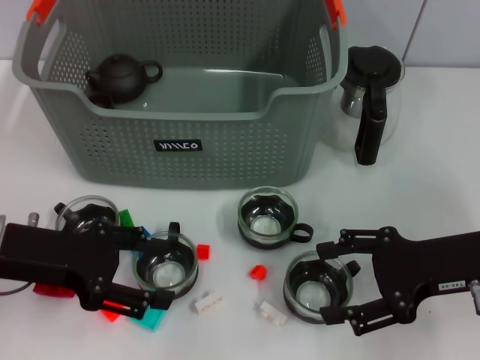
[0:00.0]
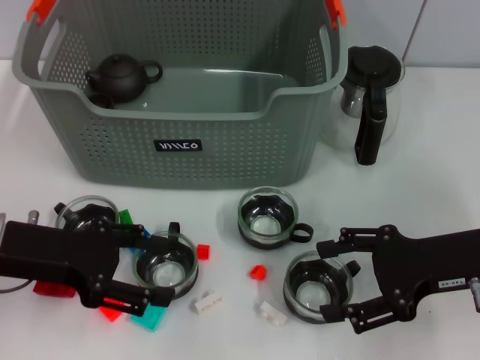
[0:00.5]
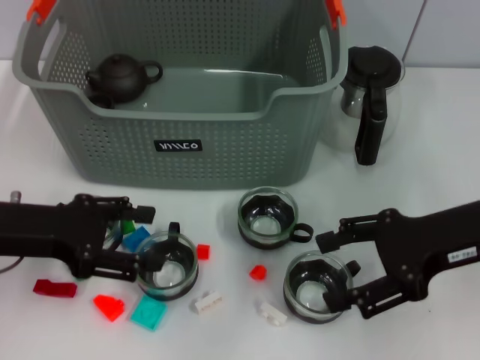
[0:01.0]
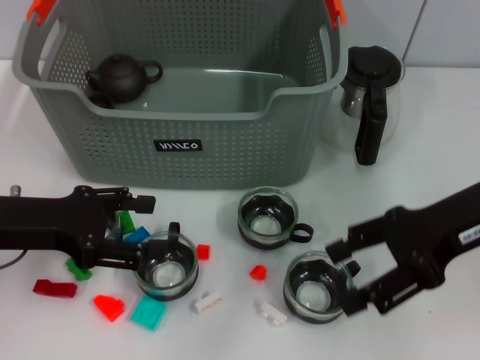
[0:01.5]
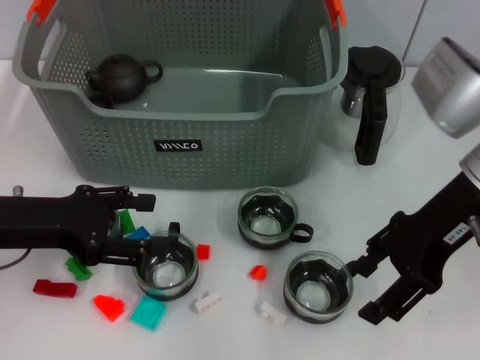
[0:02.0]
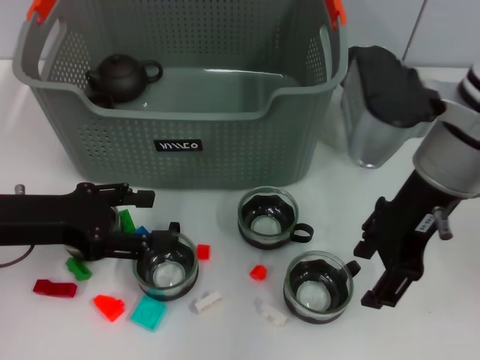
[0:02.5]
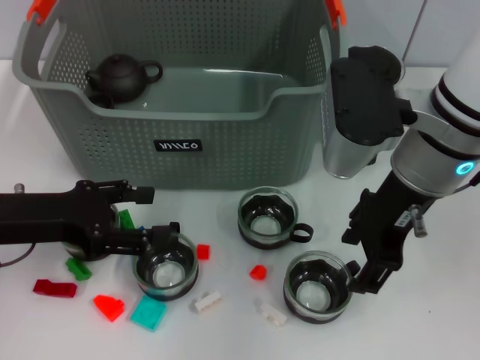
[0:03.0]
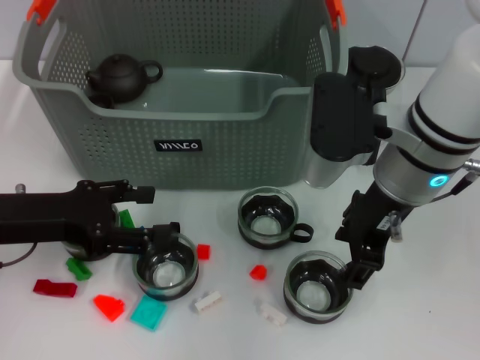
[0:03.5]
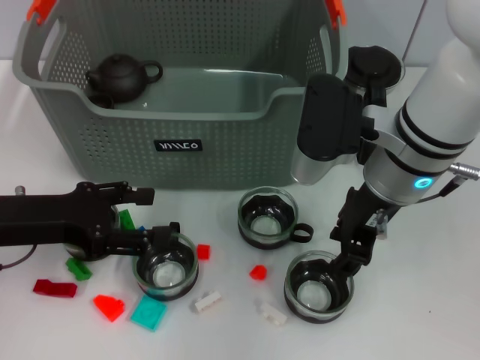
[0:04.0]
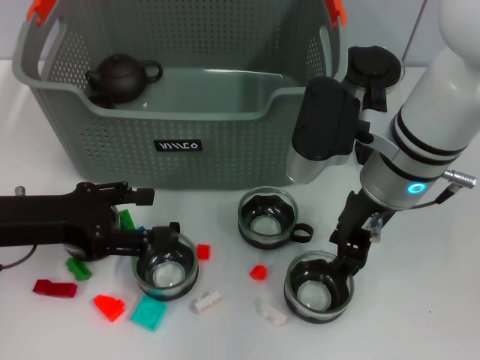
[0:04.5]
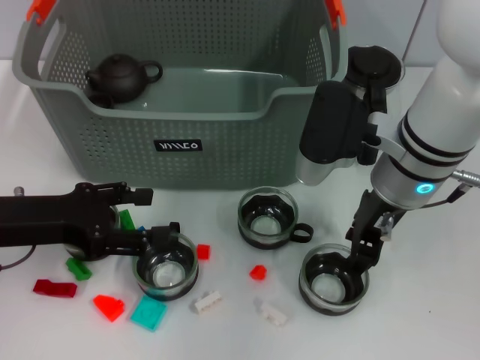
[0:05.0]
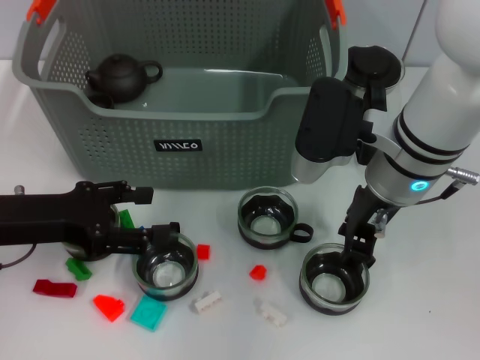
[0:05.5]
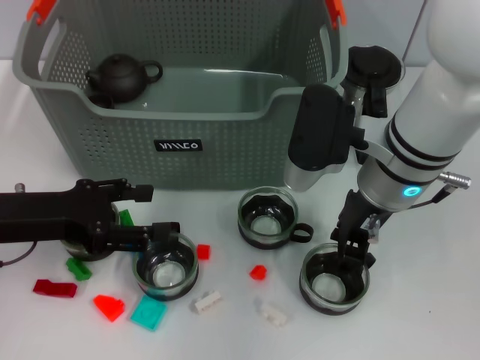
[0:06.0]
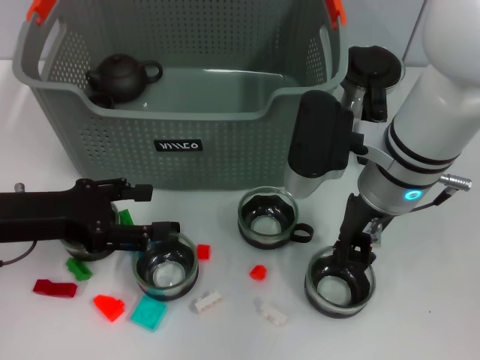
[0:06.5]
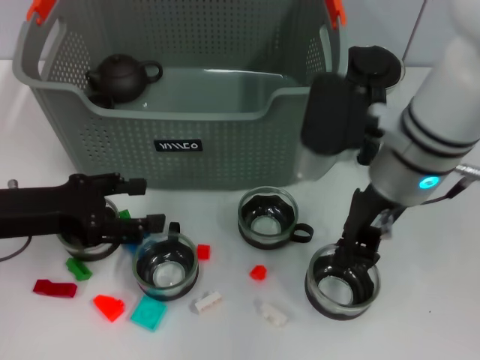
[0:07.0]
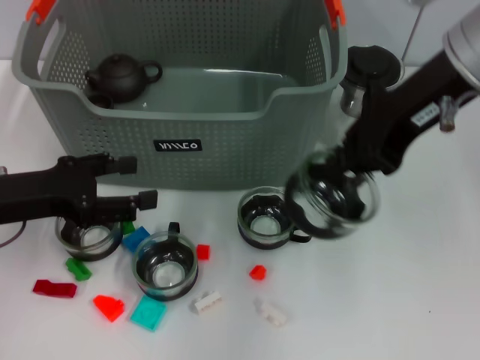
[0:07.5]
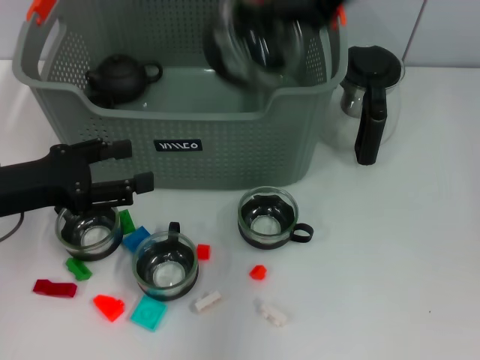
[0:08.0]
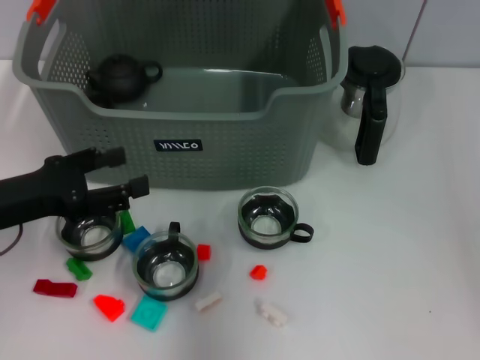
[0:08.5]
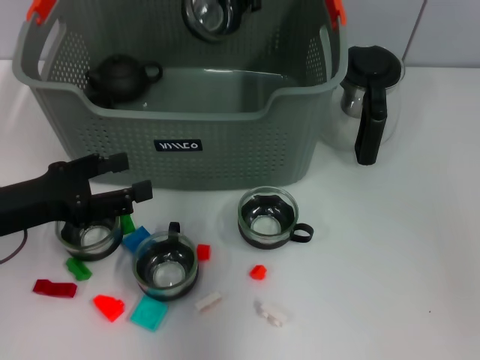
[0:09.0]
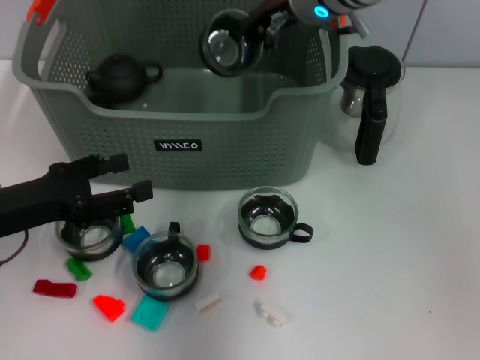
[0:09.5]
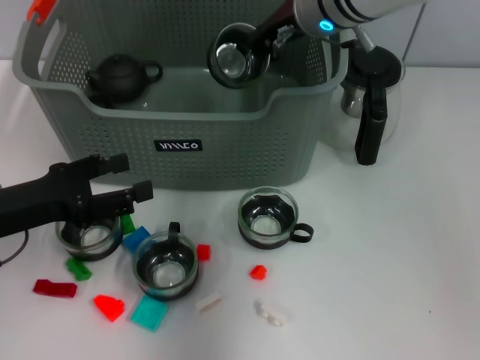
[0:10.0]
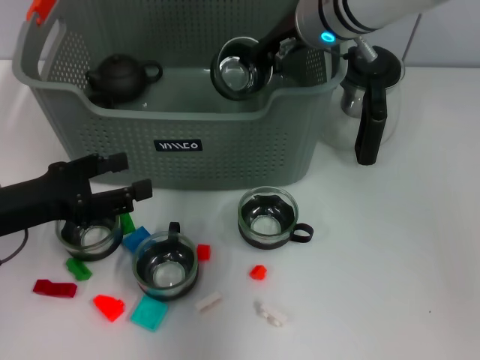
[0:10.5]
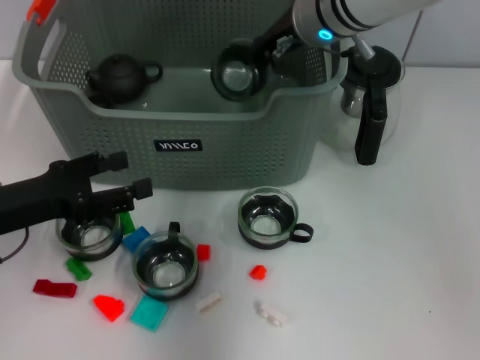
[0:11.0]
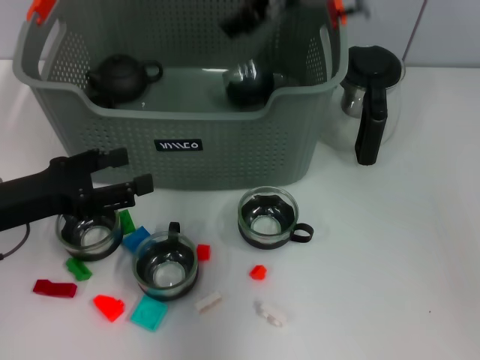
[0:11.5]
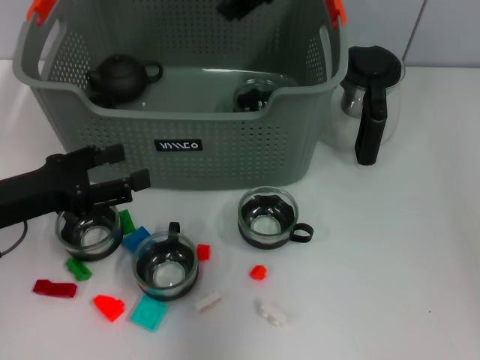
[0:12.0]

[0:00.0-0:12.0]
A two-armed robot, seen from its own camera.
Task of the whole recording: pick up the teacup on the table and place it into the storage bin, pick up the block on the table and place it into the storage bin.
Step, 0:00.0 to 0:06.5: Grasp the cup with right gripper.
Step, 0:07.0 to 0:11.5: Place the cup in the storage box with right gripper.
0:00.0 to 0:02.0: The right gripper is displaced upward, forward and to the left by some 10 cm.
0:02.0 to 0:04.0: The right gripper goes some 10 cm to the left.
0:04.0 to 0:06.0: There are only small adjustments of the grippers.
0:06.0 to 0:08.0: The right gripper heads upward, covering roughly 20 cm, and closes its fingers.
0:08.0 to 0:10.0: The right gripper is displaced downward, forward and to the left by approximately 20 cm.
0:10.0 to 0:12.0: The right gripper moves upward and backward, about 15 cm, and opens up.

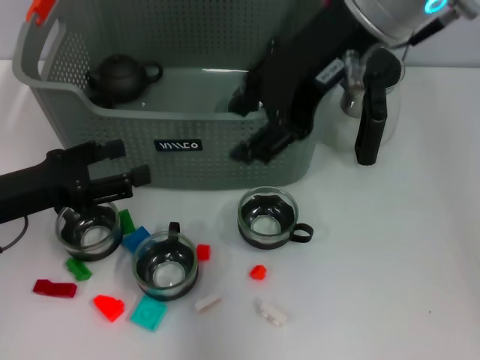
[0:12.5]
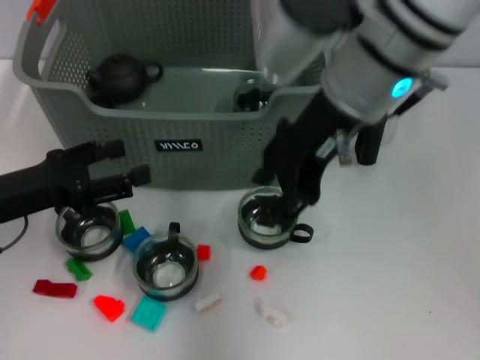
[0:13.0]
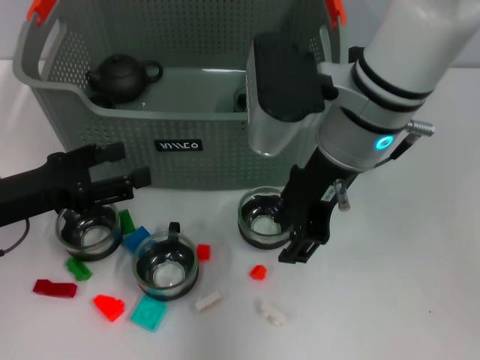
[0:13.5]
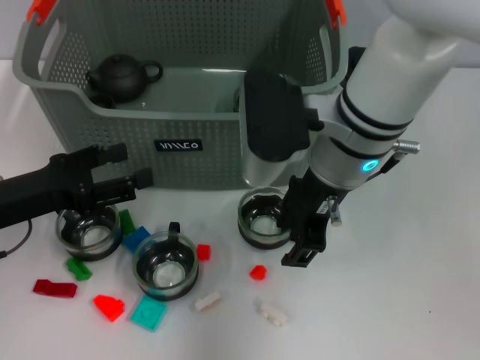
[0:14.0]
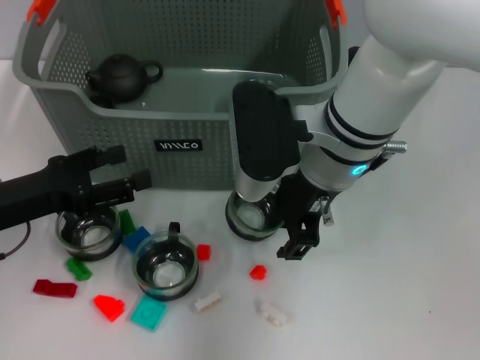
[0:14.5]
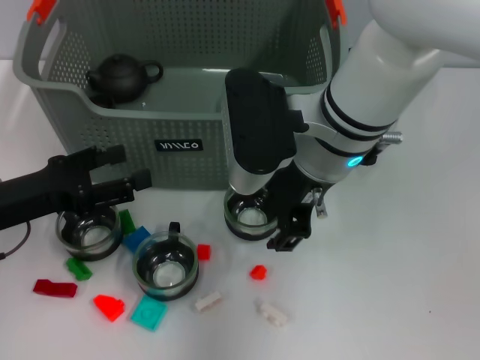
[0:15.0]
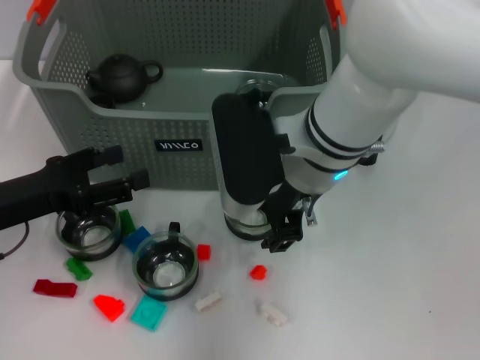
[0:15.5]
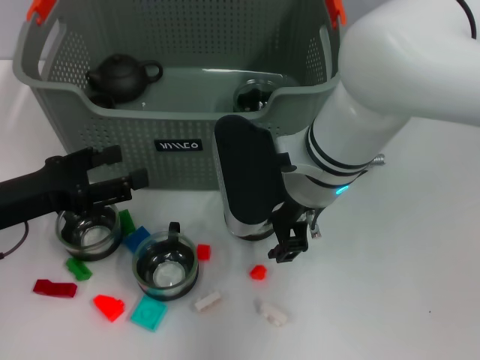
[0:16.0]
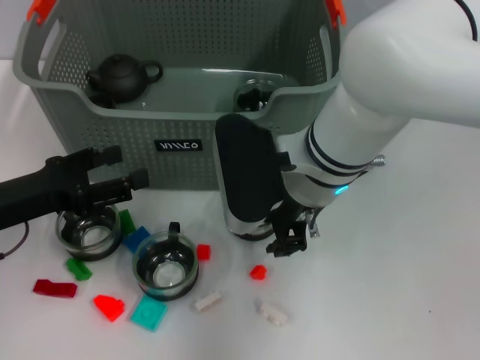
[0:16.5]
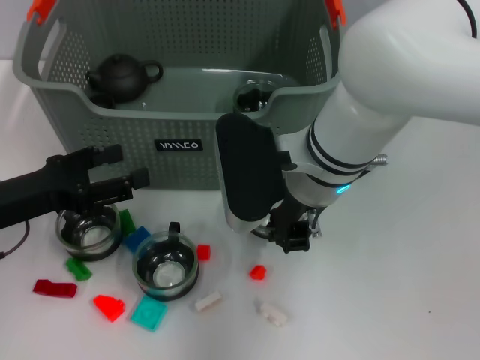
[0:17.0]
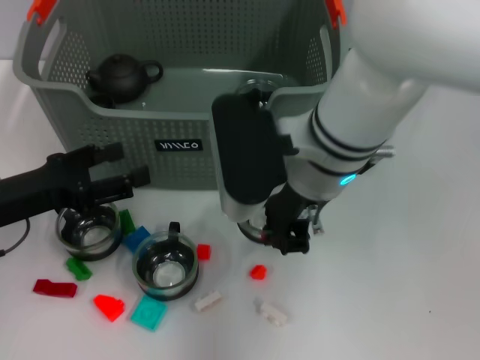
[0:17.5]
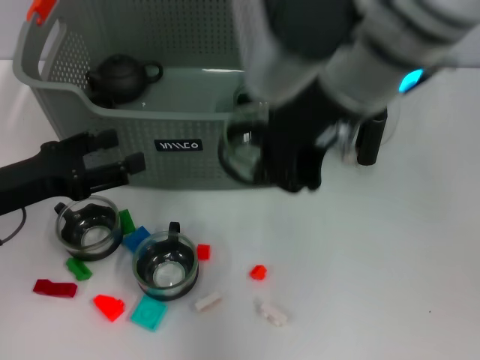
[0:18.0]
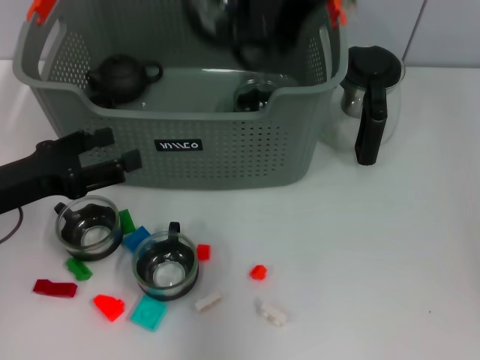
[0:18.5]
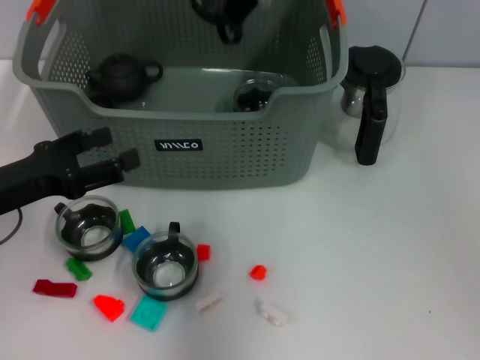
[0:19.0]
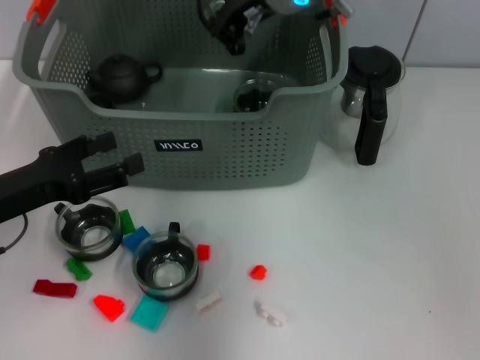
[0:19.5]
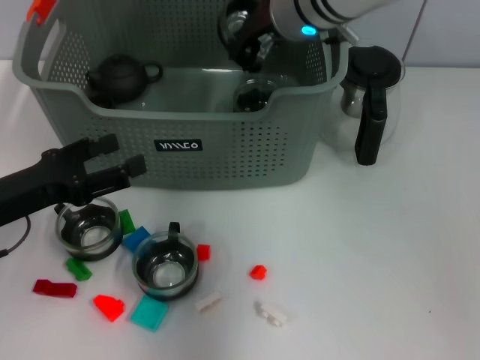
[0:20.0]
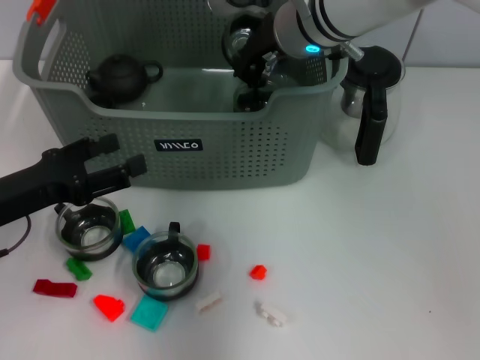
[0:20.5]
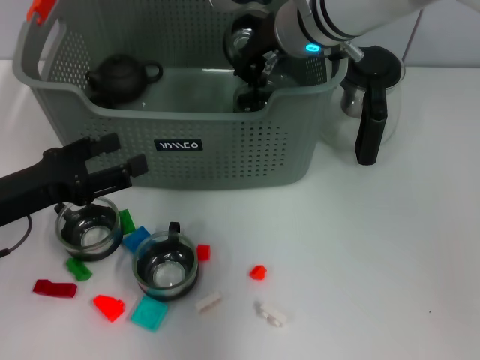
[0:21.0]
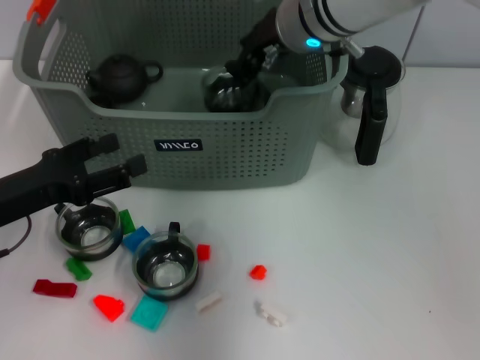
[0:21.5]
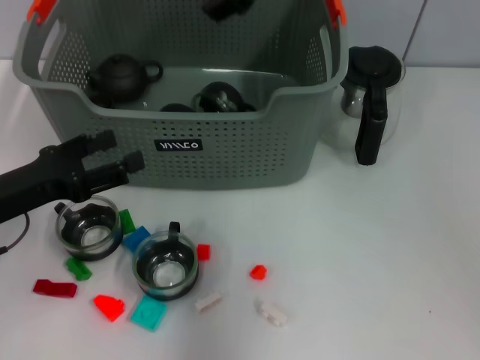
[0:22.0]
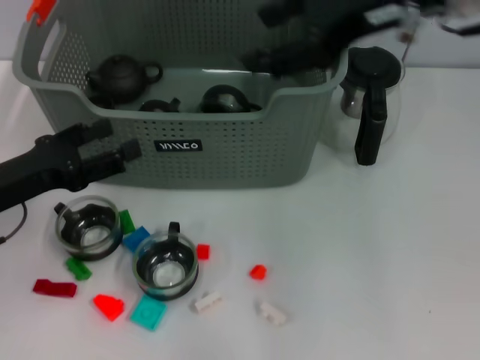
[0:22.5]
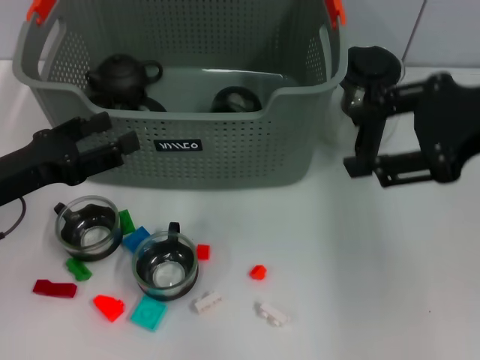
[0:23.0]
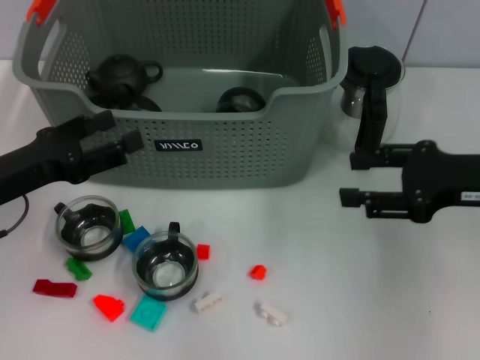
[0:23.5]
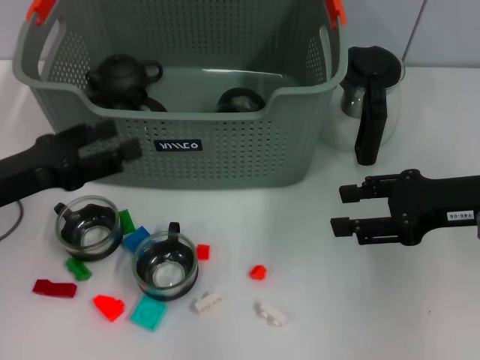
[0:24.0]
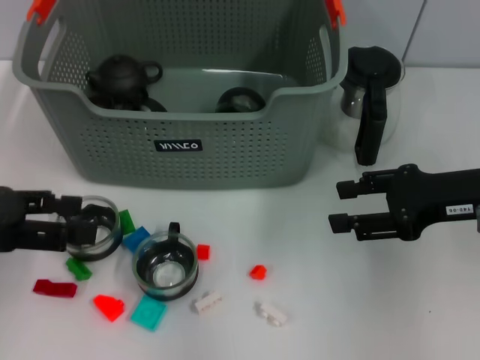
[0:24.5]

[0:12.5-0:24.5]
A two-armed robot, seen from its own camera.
Task of the whole recording: pick up the teacup on the table and place it into the storage bin, pick up the block on the table and place it into the storage bin.
Step, 0:12.5 to 0:17.0: Grasp the cup with right gripper.
Step, 0:17.5 to 0:21.5: Place the cup in the storage box with right gripper.
0:12.5 to 0:14.5: The right gripper moves downward, roughly 15 cm.
0:14.5 to 0:16.5: The grippers move only a little.
0:16.5 to 0:18.5: The right gripper shifts roughly 20 cm upward, and closes its fingers.
0:18.5 to 0:20.5: The right gripper shifts approximately 20 cm downward and forward.
0:20.5 to 0:22.5: The right gripper goes roughly 20 cm upward, to the right and backward, and opens its fingers.
0:22.5 to 0:24.5: The right gripper goes approximately 20 cm downward and to the right, while the left gripper goes roughly 10 cm upward.

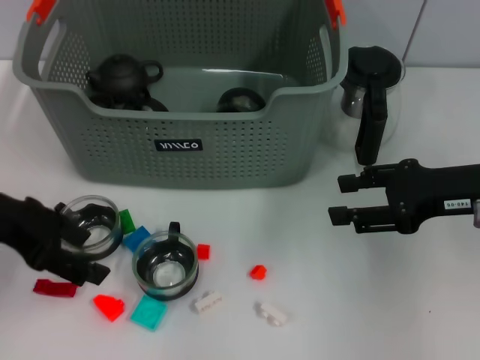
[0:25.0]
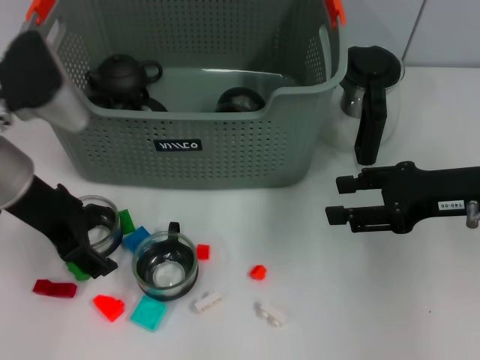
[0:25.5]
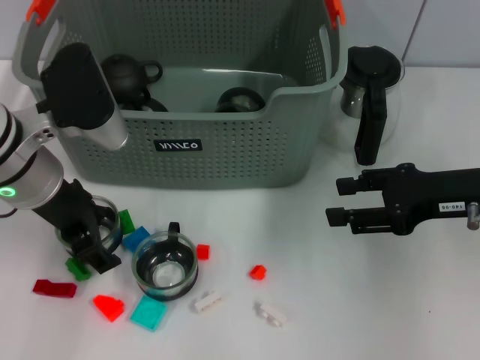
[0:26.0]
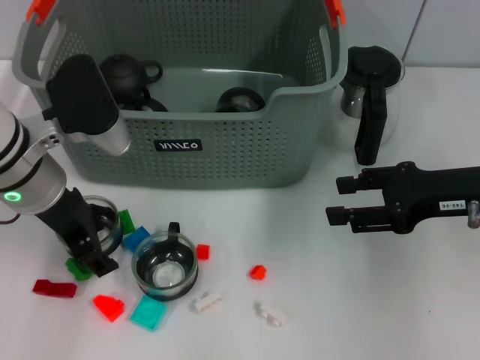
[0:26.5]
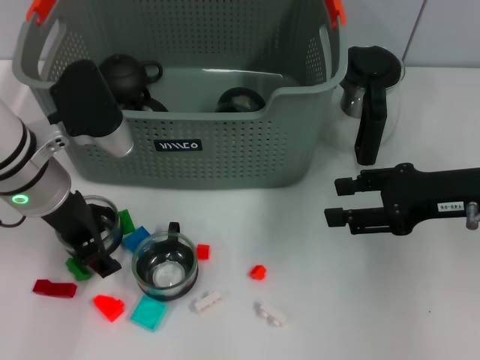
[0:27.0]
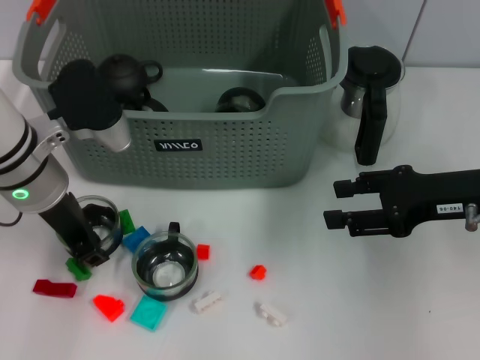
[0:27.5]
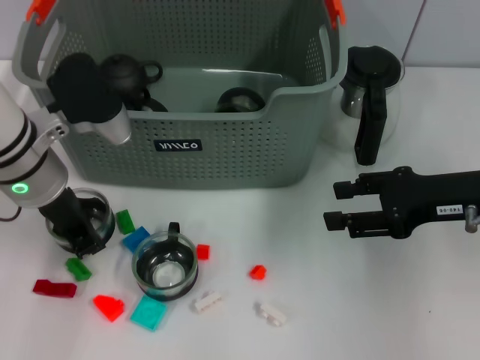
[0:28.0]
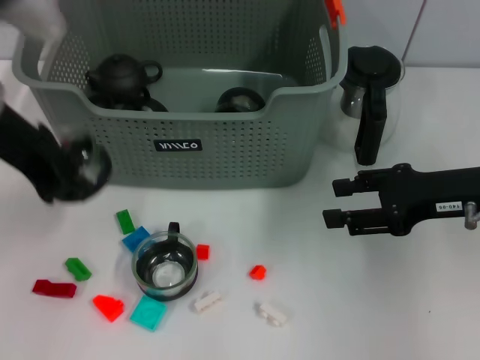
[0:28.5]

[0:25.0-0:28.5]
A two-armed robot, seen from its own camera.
Task of the whole recording: pick up the teacup on the table and place it into the storage bin, pick up the block on the table and place it into the storage bin.
Step, 0:25.0 to 0:27.5: Grasp the cup with left gripper.
0:25.0 to 0:27.0: The left gripper is displaced to the right by roughly 10 cm.
0:27.0 to 0:28.5: The left gripper moves upward, roughly 10 cm, and closes its fingers.
